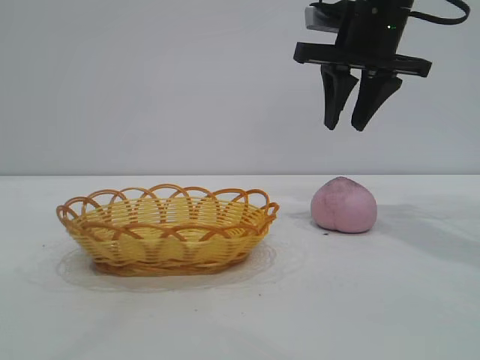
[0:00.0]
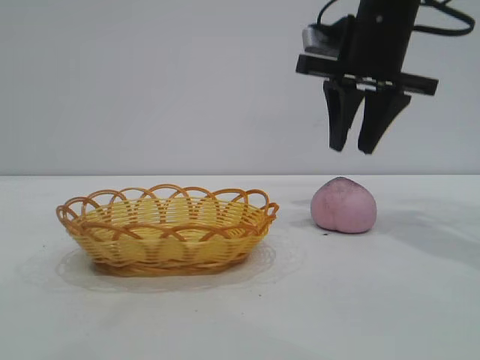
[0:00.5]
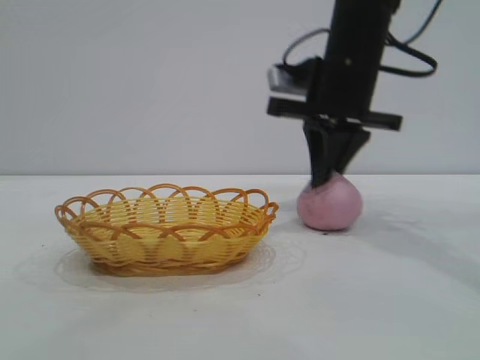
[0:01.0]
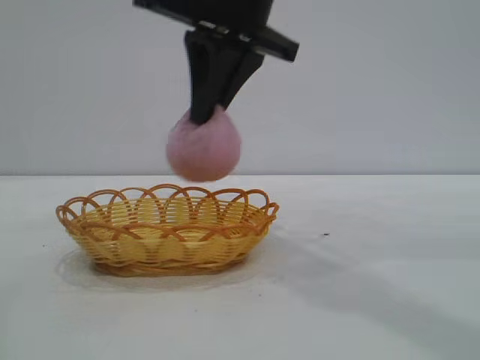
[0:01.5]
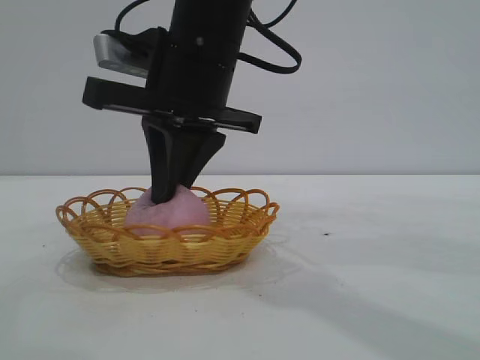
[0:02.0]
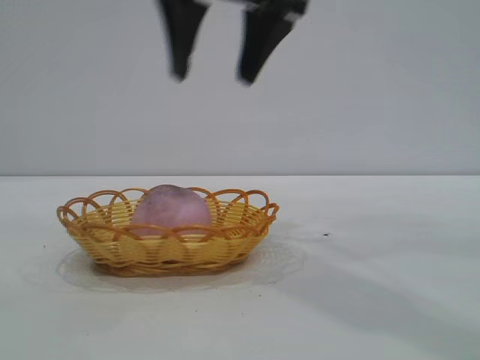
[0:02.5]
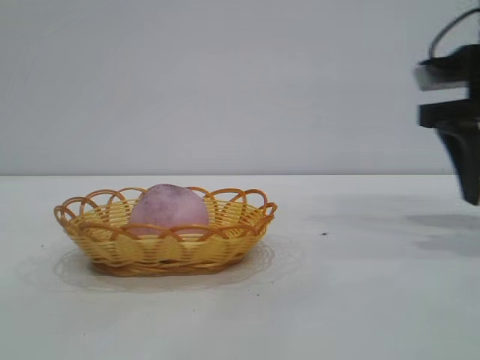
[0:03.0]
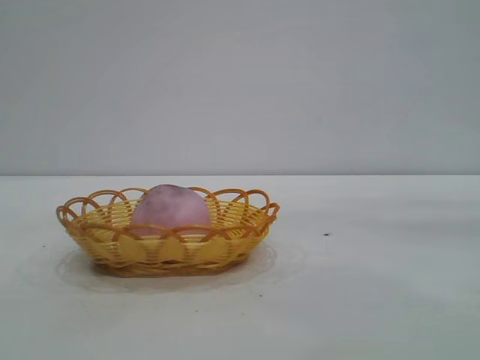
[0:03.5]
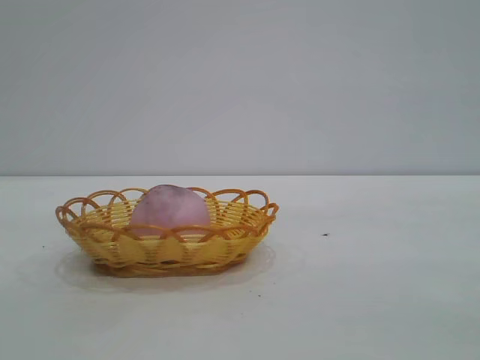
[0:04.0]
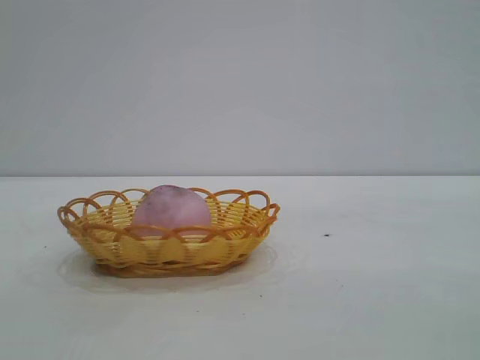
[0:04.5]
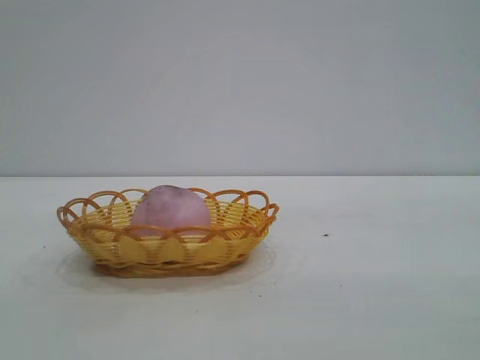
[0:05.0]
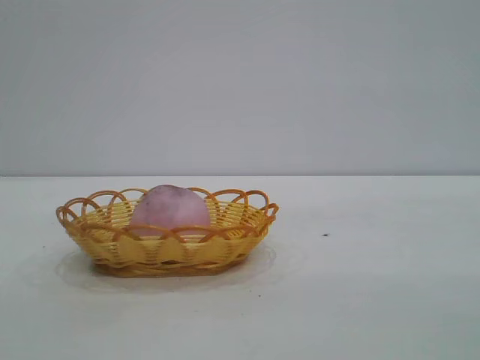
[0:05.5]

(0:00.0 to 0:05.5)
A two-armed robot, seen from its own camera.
Task of the whole recording: pick up the peach and put it into the basket.
Step, 0:01.5 - 0:02.0: place the peach into the basket.
